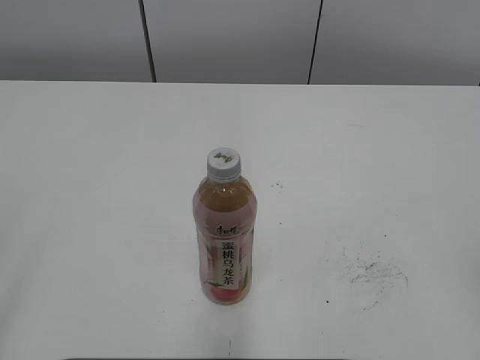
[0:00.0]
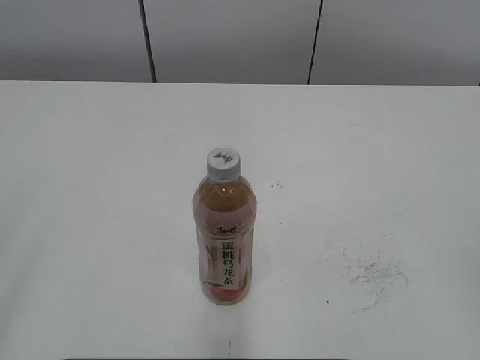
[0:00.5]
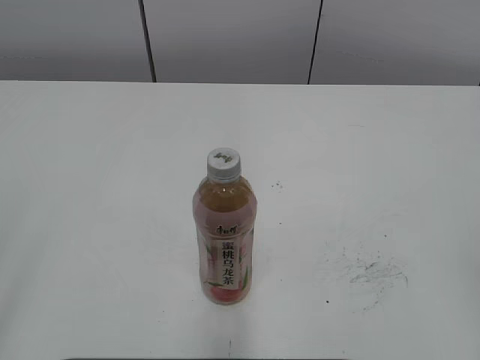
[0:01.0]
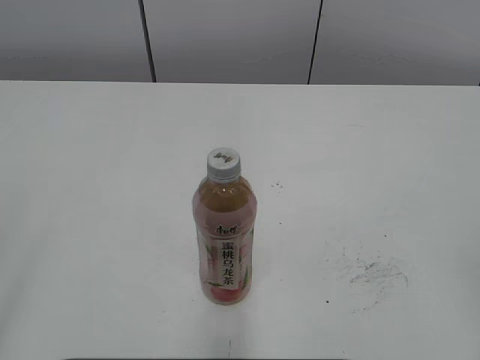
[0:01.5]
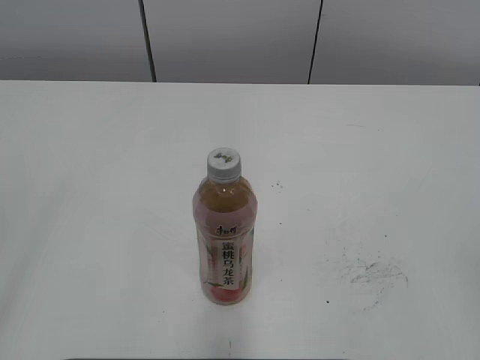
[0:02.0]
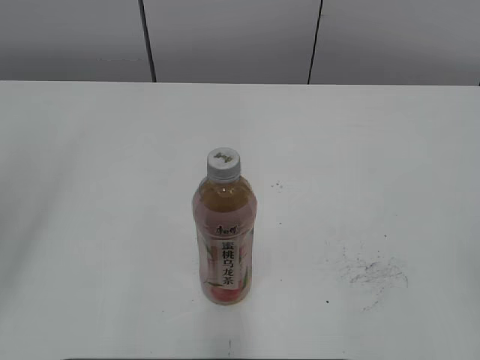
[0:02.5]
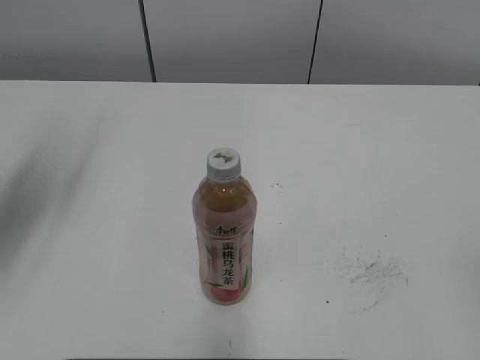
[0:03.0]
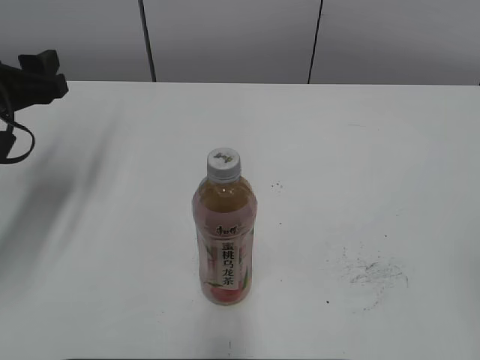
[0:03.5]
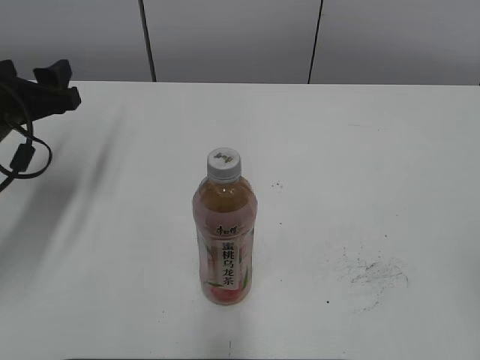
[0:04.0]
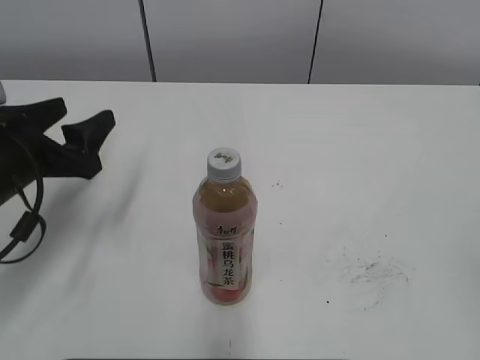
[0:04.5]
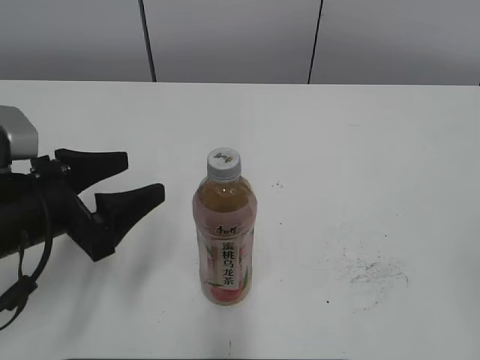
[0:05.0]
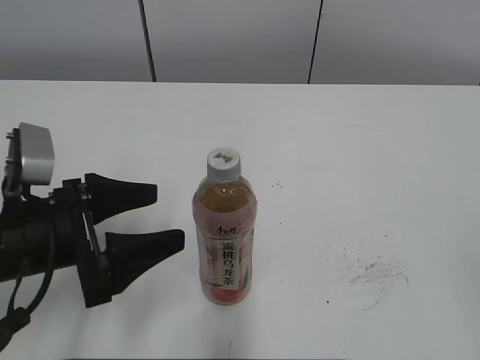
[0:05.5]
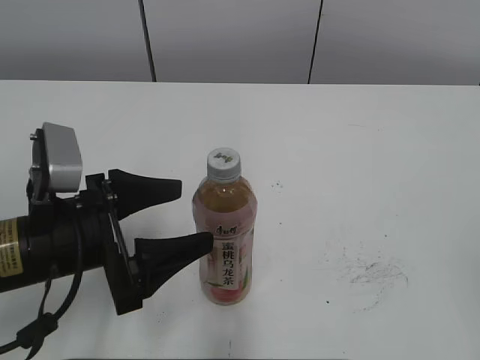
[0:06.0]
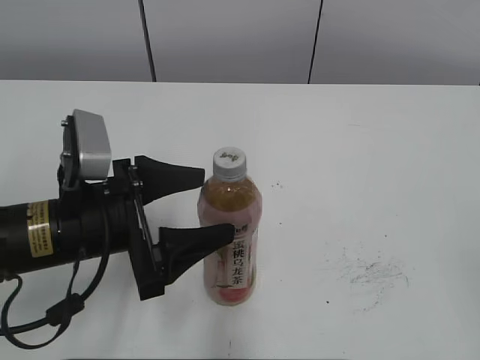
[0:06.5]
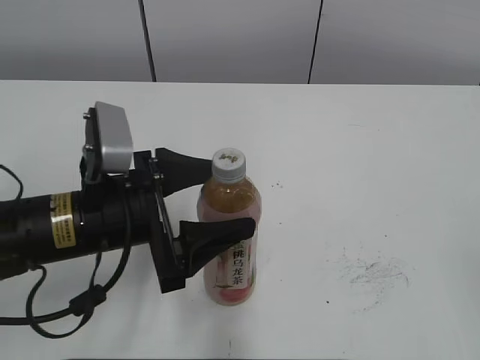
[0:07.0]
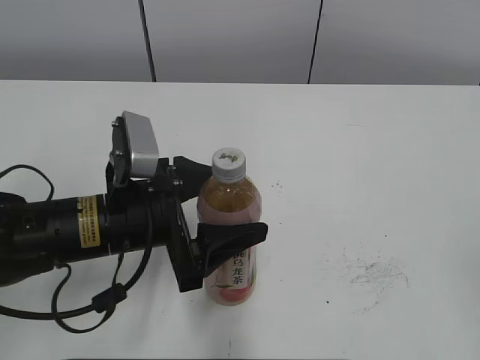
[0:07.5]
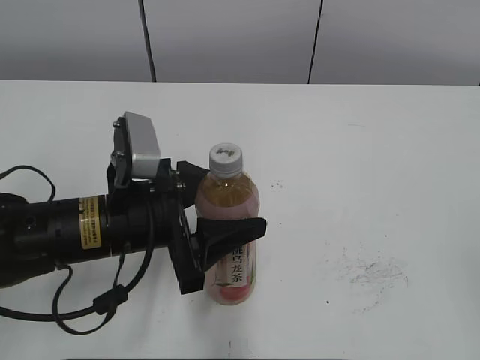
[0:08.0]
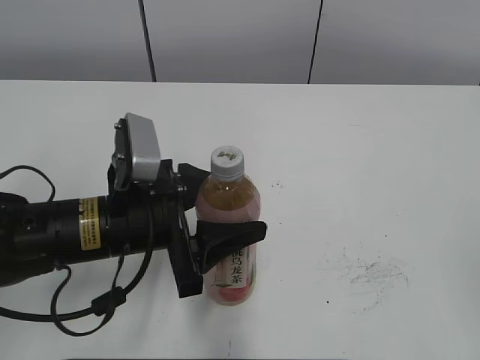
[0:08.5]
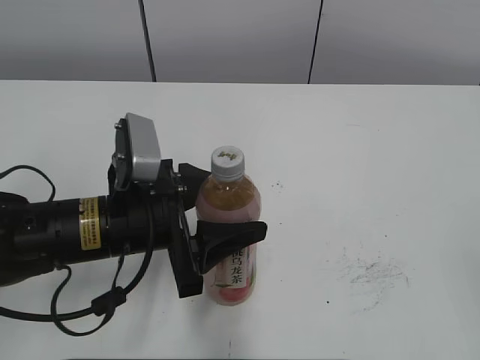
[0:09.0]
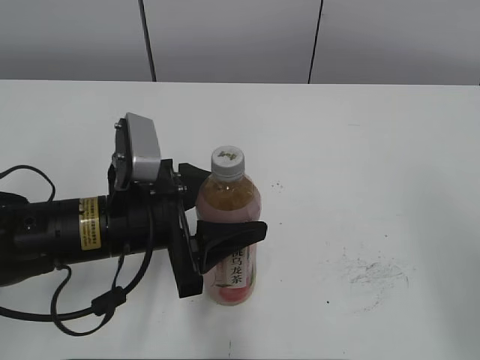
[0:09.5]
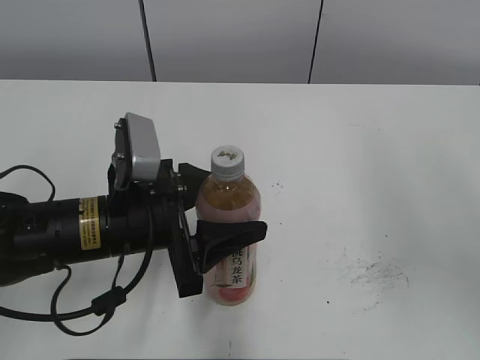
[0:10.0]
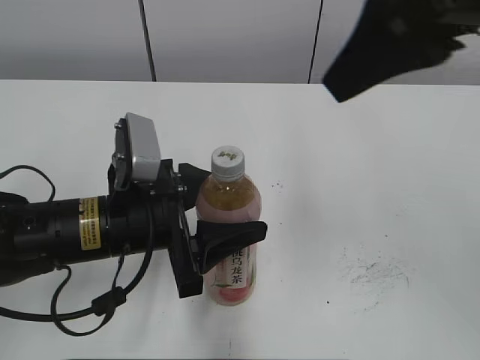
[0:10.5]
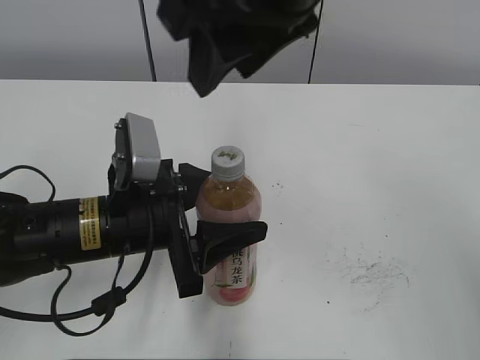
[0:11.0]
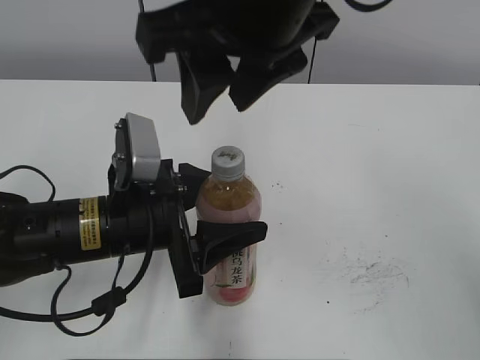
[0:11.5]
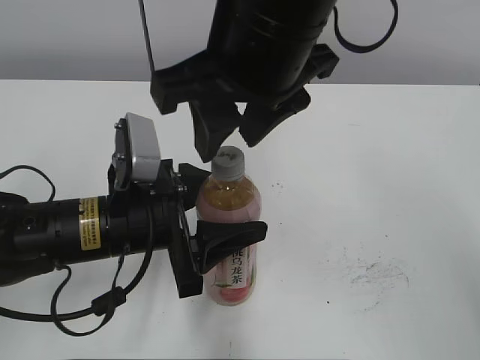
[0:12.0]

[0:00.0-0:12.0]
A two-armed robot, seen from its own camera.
Step, 0:00.0 to 0:08.0: Grab the Peach Oolong Tea with the left hand.
0:02.0 to 0:04.0: The left gripper moves forward and downward, some 35 cm.
0:04.0 to 0:06.0: The left gripper shifts some 15 cm backward and to the right, and opens.
0:06.0 to 0:08.0: The left gripper ends up approximately 5 cm from where it was, and closes its fingers.
0:08.0 to 0:10.0: The right gripper goes approximately 20 cm forward and upward, and closes.
0:10.0 to 0:12.0: The right gripper goes roughly 20 cm to the left.

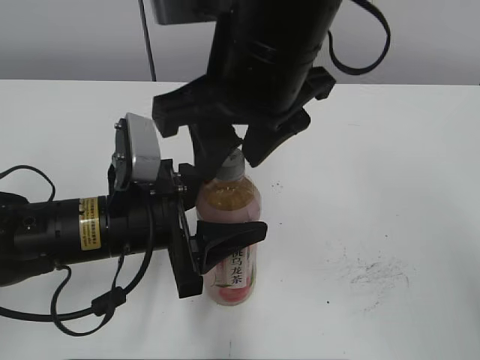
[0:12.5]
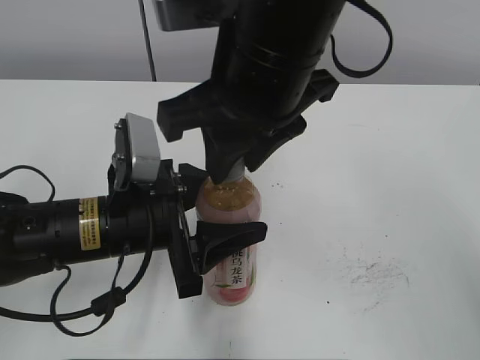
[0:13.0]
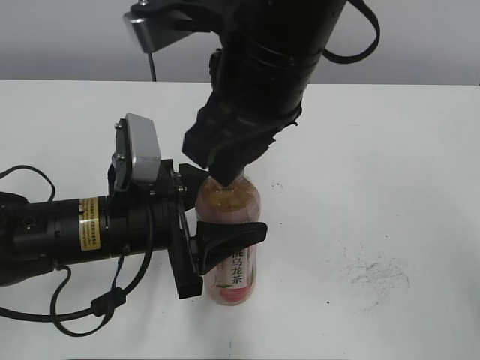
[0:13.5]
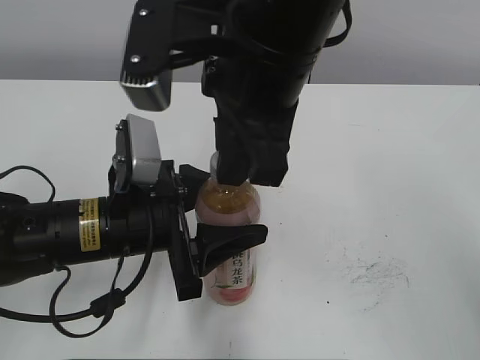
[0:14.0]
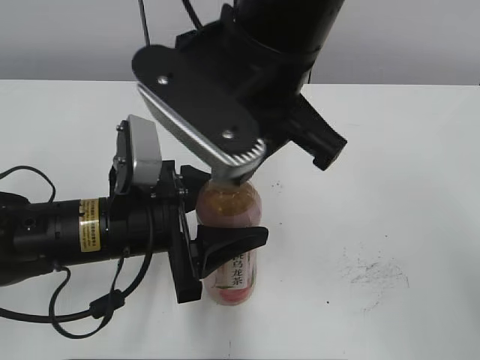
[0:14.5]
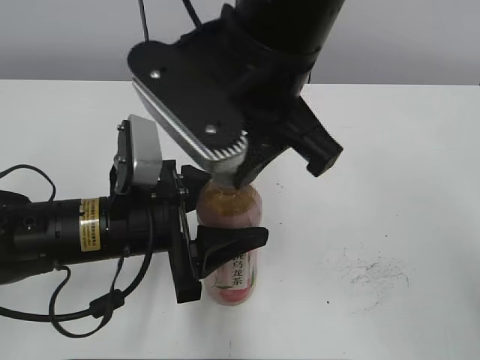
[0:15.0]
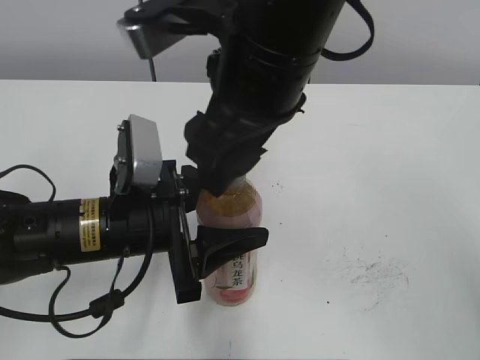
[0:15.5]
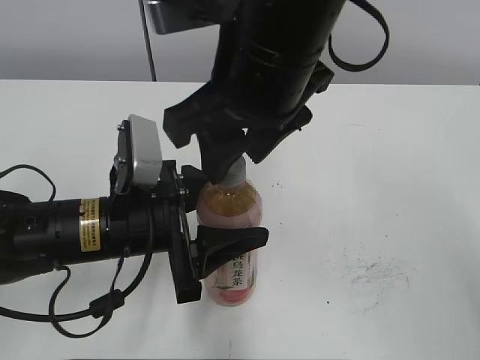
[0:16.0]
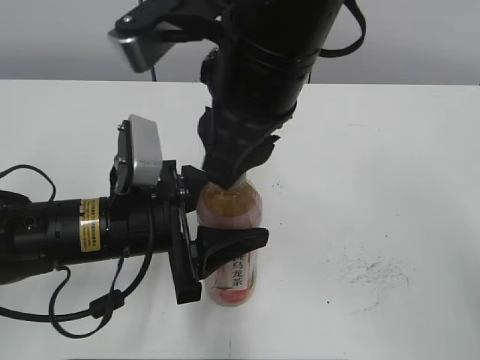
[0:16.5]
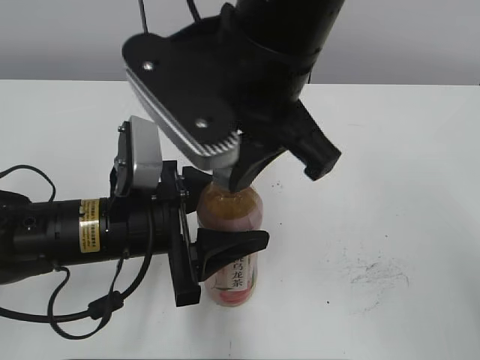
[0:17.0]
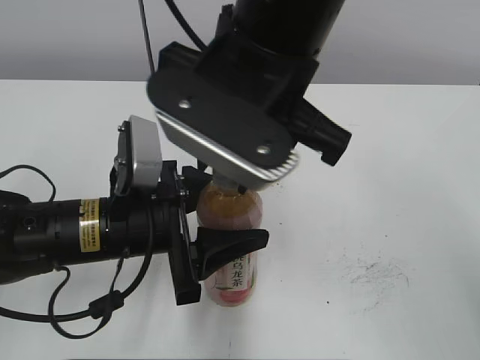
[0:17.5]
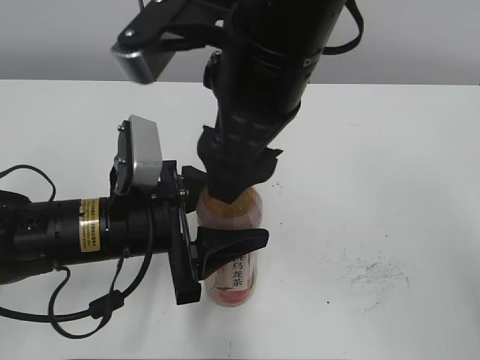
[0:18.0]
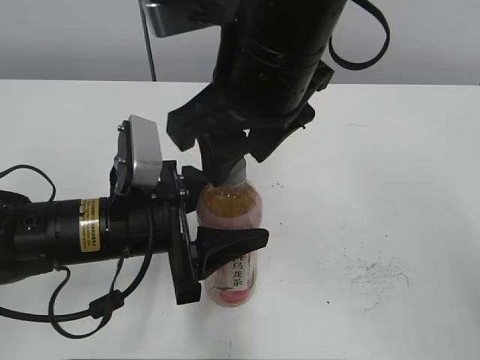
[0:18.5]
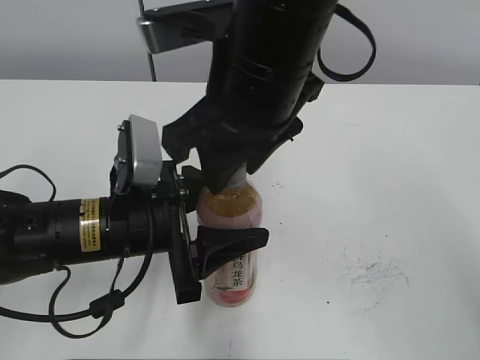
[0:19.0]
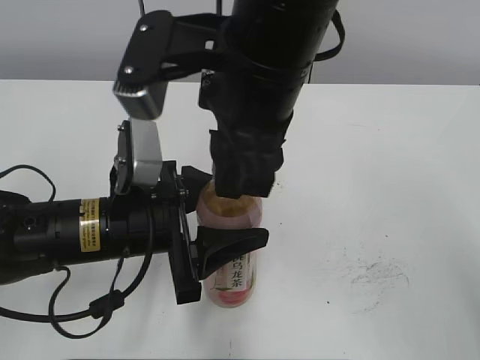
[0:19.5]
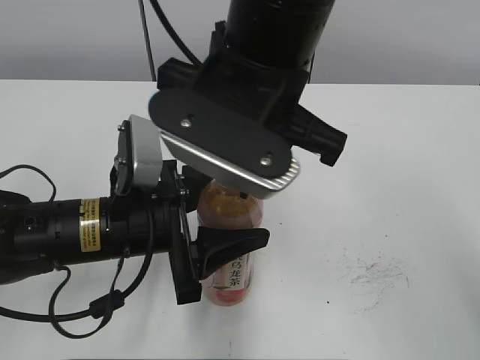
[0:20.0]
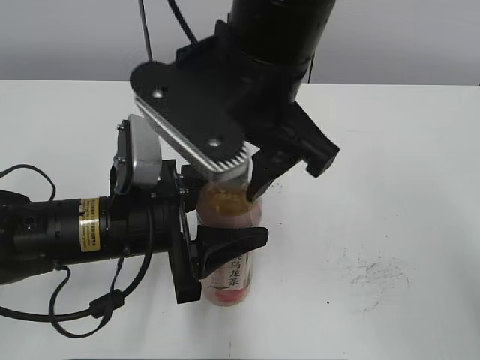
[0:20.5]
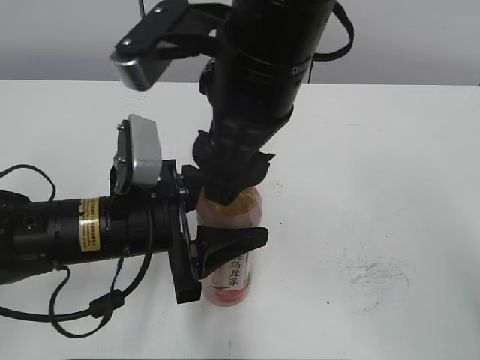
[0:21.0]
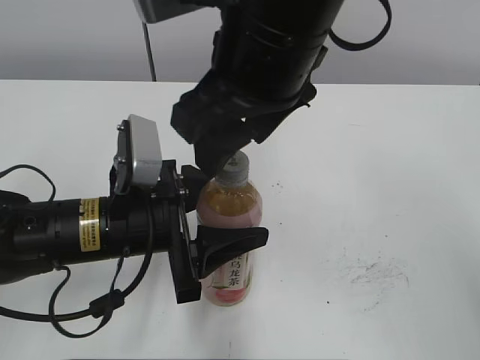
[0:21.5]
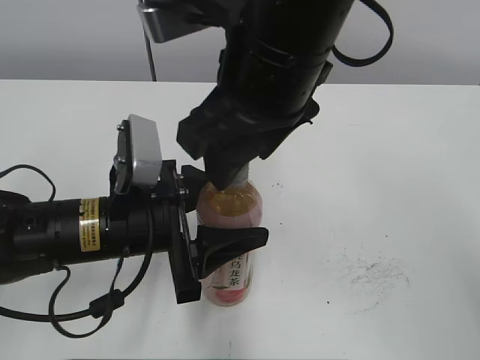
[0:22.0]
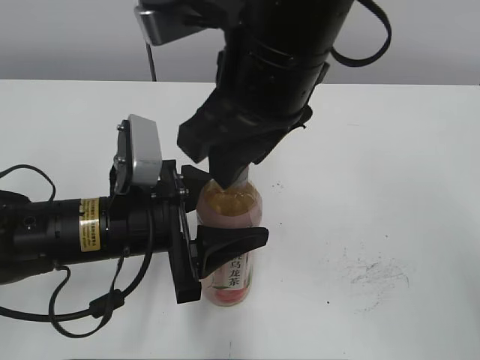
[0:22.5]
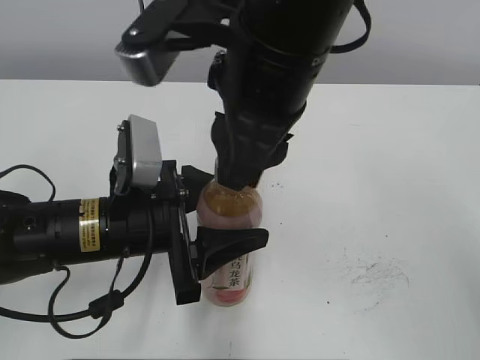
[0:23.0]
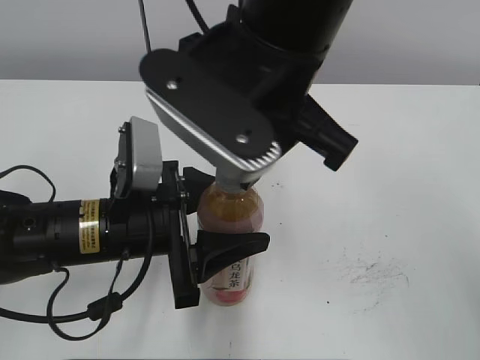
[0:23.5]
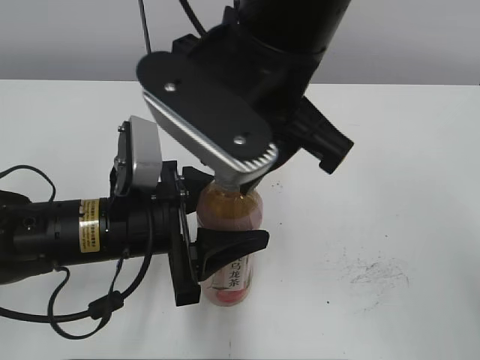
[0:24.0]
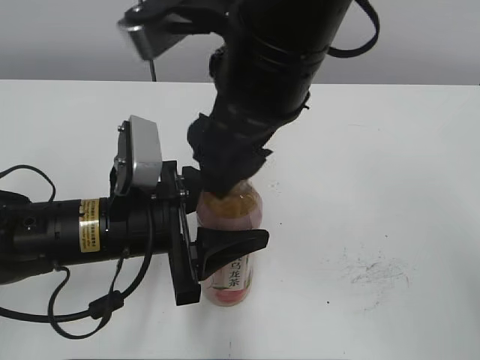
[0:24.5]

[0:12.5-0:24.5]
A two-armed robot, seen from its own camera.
0:12.5 to 0:14.5: The right gripper closes its fingers.
0:14.5 to 0:16.5: The right gripper opens, then closes once more.
0:16.5 to 0:18.5: The right gripper opens.
0:18.5 to 0:20.5: The right gripper closes and opens again.
0:20.5 to 0:22.5: The right gripper closes.
0:22.5 to 0:24.5: The right gripper opens.

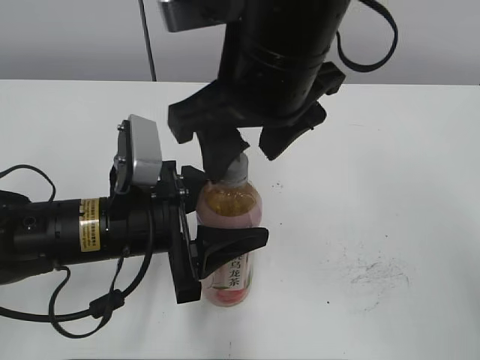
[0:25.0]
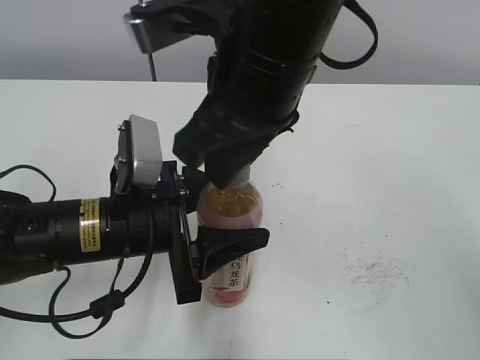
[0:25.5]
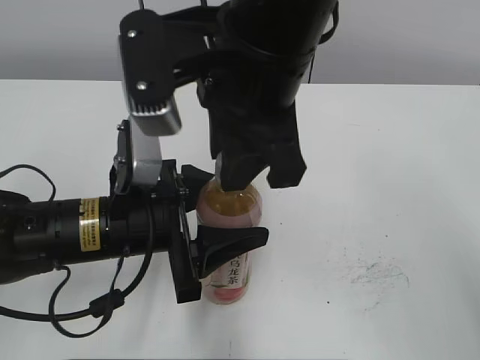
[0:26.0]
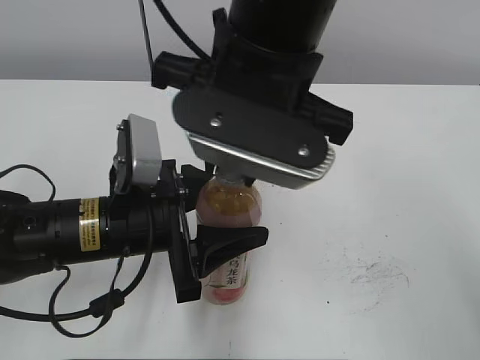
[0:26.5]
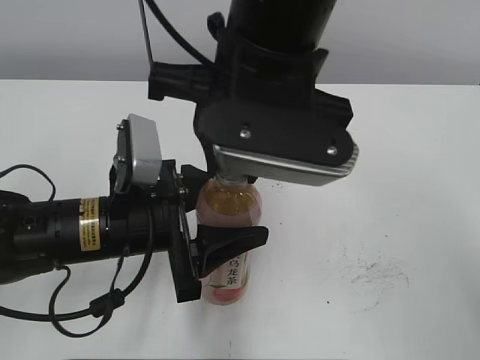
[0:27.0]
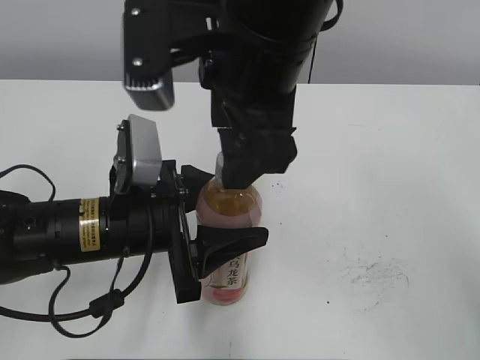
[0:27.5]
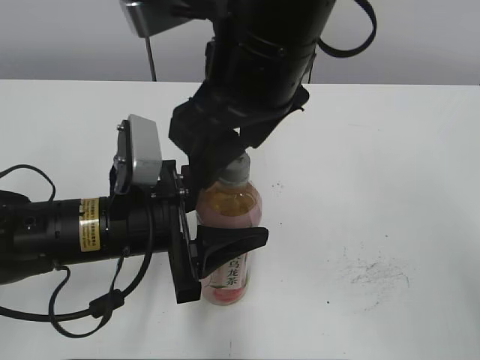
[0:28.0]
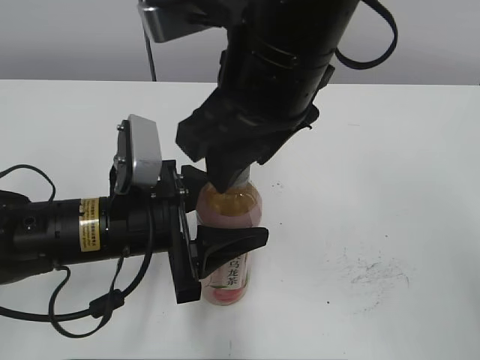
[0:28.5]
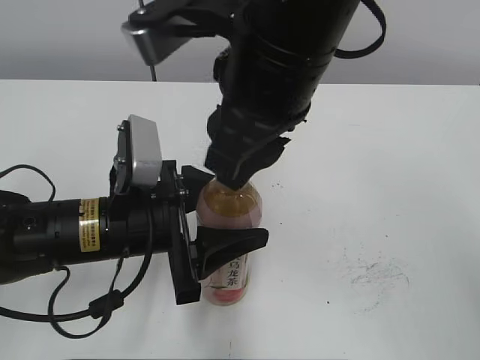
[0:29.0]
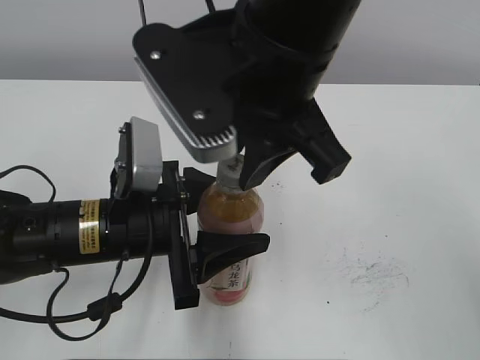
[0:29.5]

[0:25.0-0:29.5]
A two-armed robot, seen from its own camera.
0:25.0 to 0:27.0: The right gripper closes.
0:27.0 to 0:29.5: The right gripper opens and closes again.
